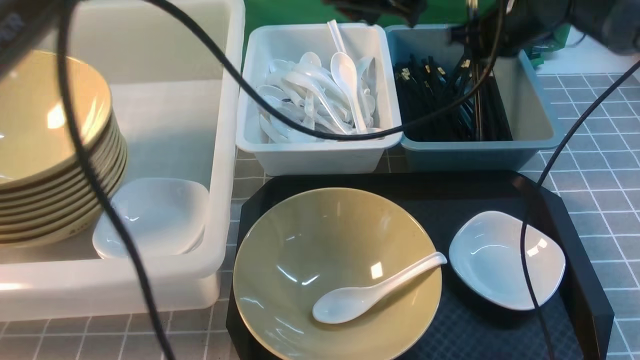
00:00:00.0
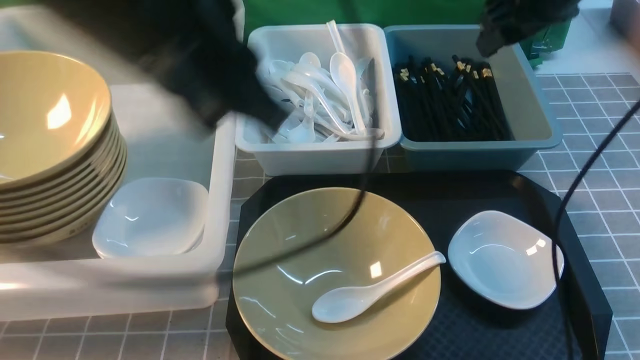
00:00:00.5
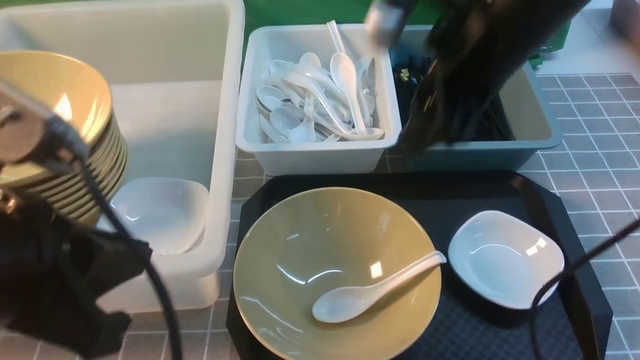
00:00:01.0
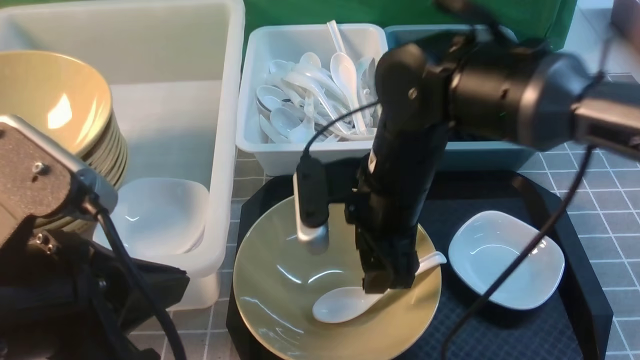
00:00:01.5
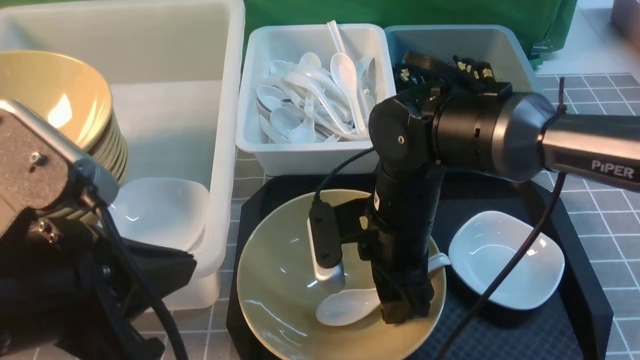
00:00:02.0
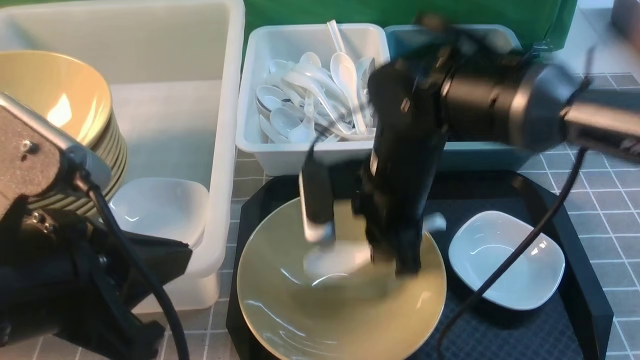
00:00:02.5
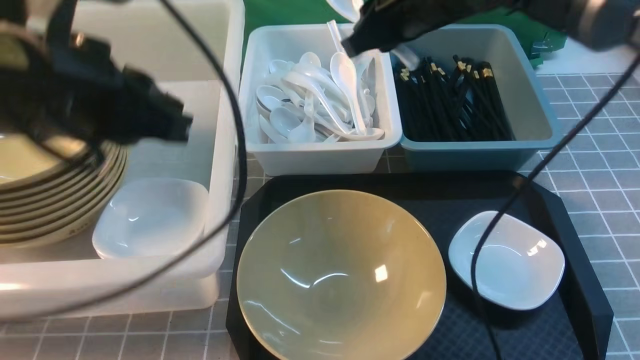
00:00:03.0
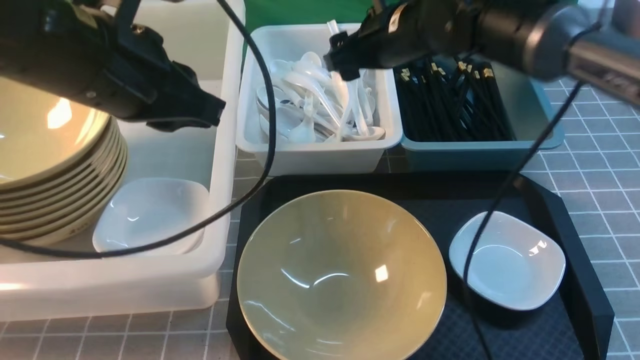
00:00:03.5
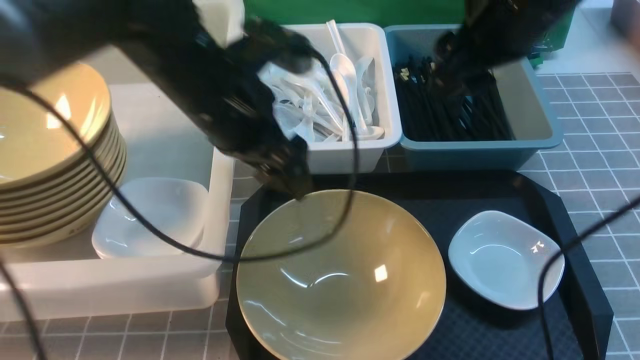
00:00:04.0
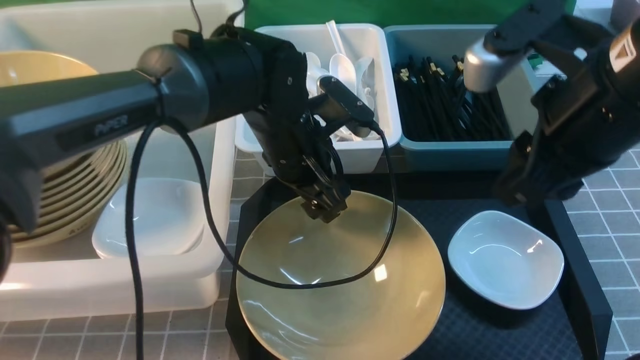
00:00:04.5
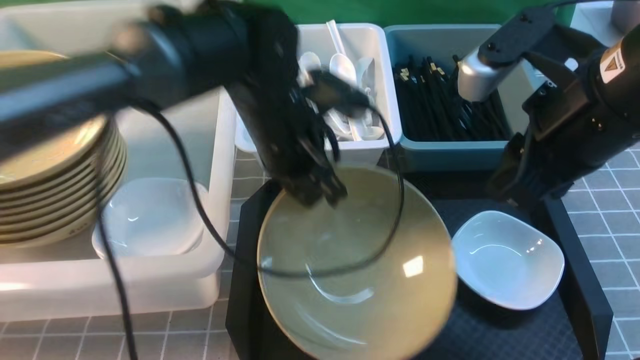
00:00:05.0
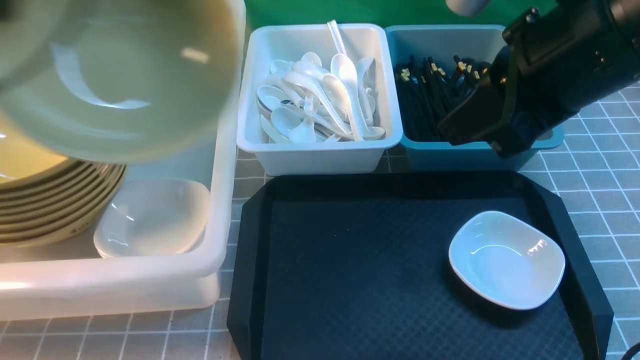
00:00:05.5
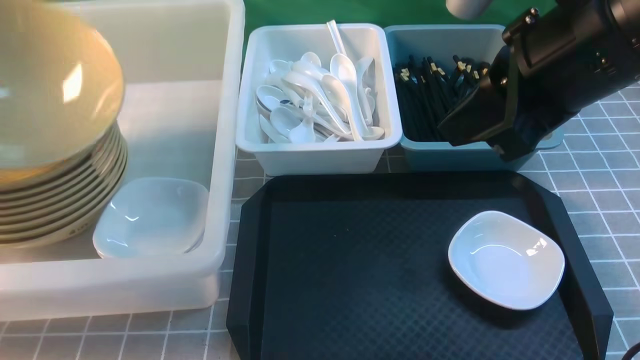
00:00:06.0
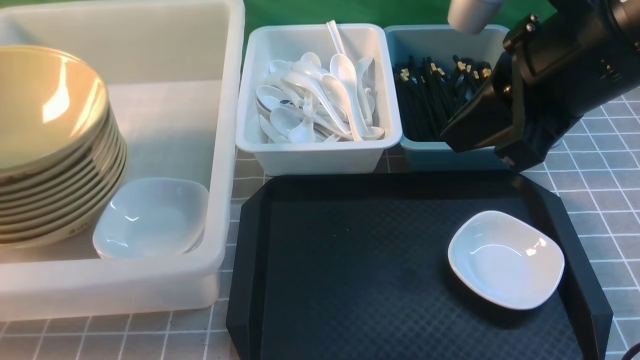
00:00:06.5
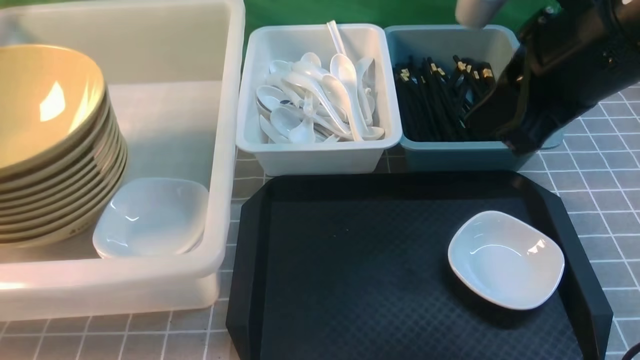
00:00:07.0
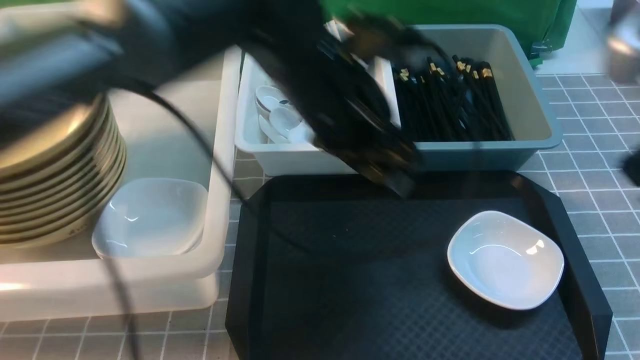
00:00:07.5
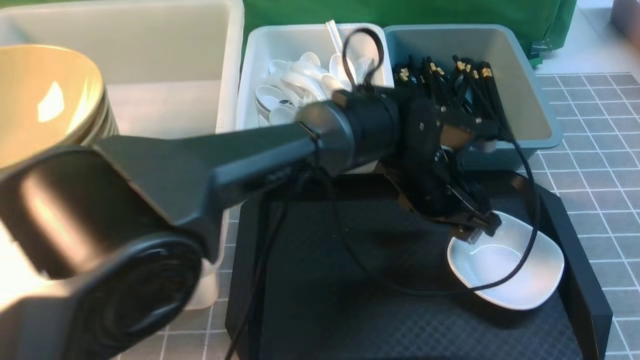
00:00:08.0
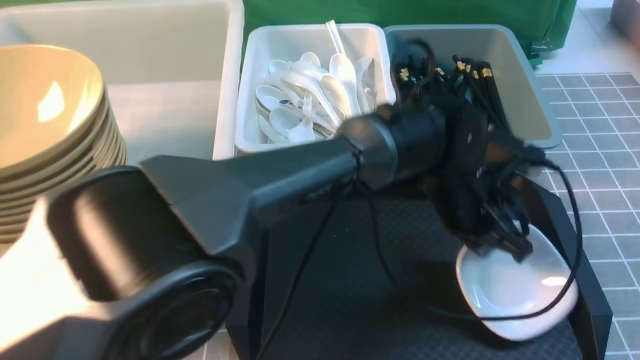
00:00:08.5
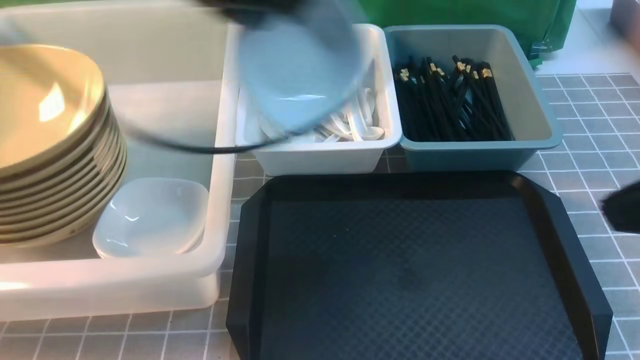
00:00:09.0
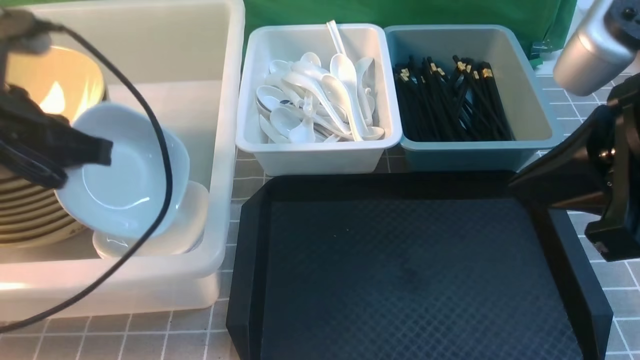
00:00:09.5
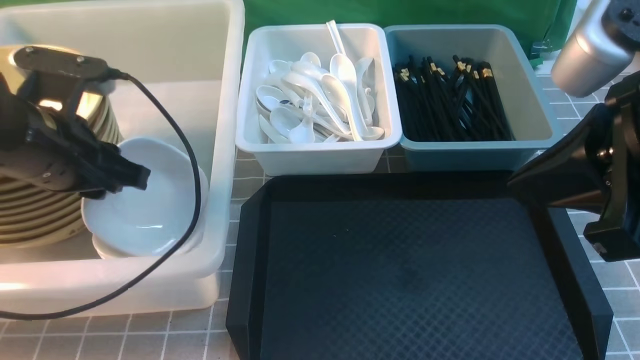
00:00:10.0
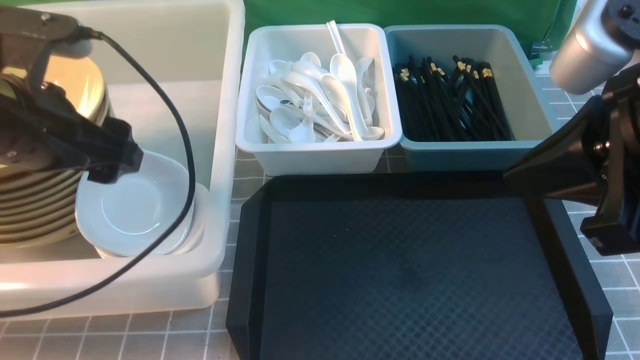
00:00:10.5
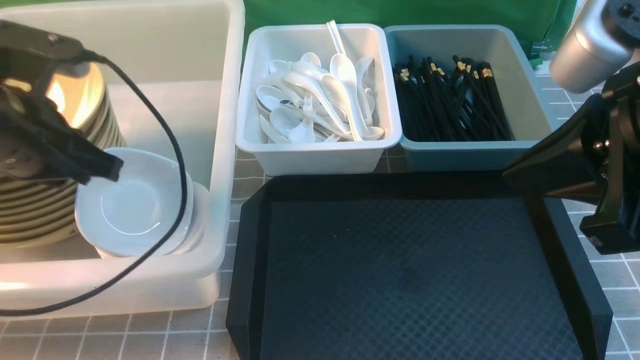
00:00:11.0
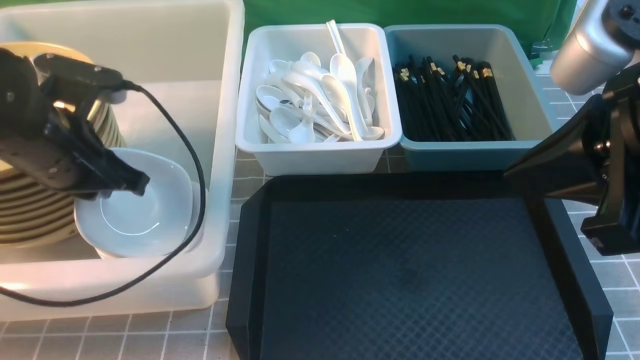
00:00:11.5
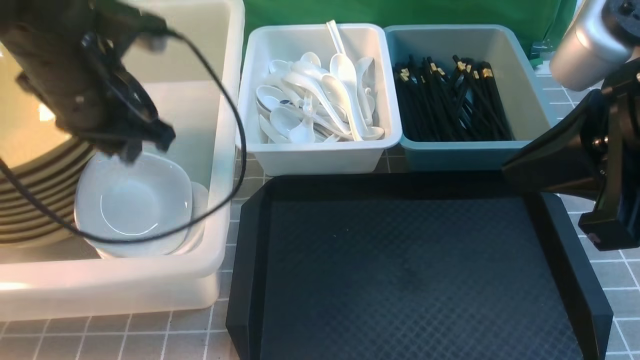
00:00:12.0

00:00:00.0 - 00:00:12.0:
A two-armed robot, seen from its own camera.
Task of the whole recording: on grey table put chopsticks spoon bowls plates into blue grey white boxes.
Step, 00:00:01.0 - 00:00:02.0: use the right arm to grab the soup spoon in the middle.
Step, 00:00:03.5 - 00:00:05.0: use the left arm to grab the yellow noodle bowl on the left.
Step, 00:00:05.5 - 00:00:07.0: use the left arm to put the noodle bowl into the large storage box on the left.
Step, 00:00:07.5 - 00:00:08.5: use the left arm to grab the plate.
00:00:00.0 - 00:00:02.0: The right gripper shifts some 30 cm backward and to the left; the left gripper moves backward, to the left and downward, some 30 cm.
00:00:02.0 - 00:00:04.0: The right gripper is displaced upward and to the right by roughly 20 cm, and closes, then opens again. The left gripper moves forward, approximately 20 cm, and opens its fingers.
00:00:04.0 - 00:00:06.0: The left gripper is displaced to the left by some 35 cm, and closes its fingers. Meanwhile the right gripper is displaced backward by roughly 5 cm, and closes.
00:00:06.0 - 00:00:08.0: The right gripper heads backward and to the right, covering approximately 15 cm. Meanwhile the left gripper shifts about 50 cm to the right, and opens its fingers.
00:00:08.0 - 00:00:10.0: The left gripper is displaced to the left by roughly 35 cm, and closes up, while the right gripper shifts some 10 cm to the left and forward.
00:00:10.0 - 00:00:12.0: The left gripper shifts by some 5 cm, and opens and closes again.

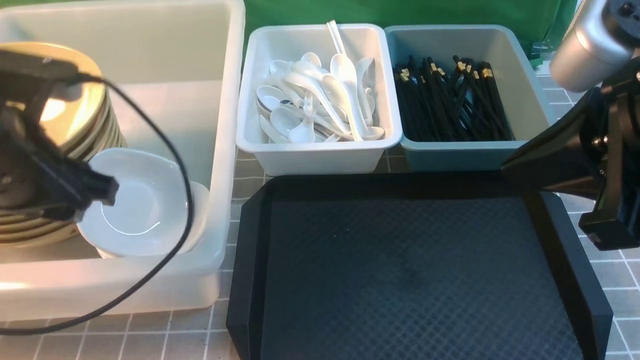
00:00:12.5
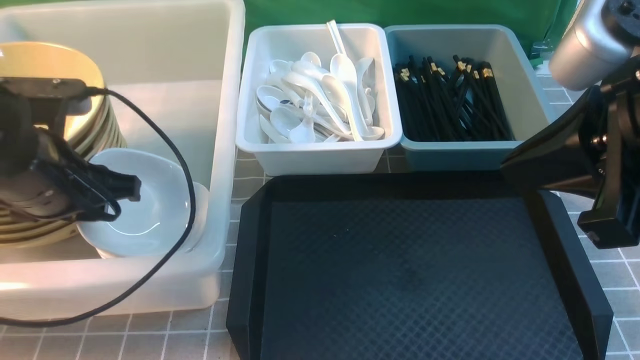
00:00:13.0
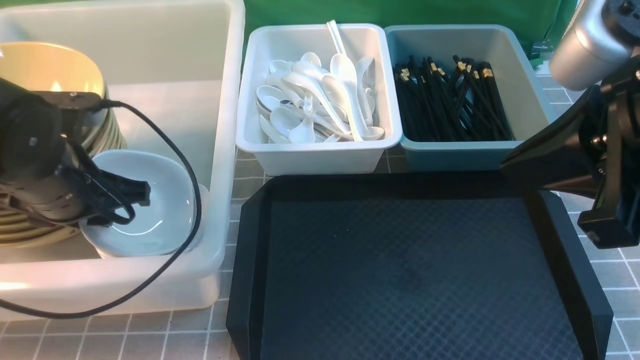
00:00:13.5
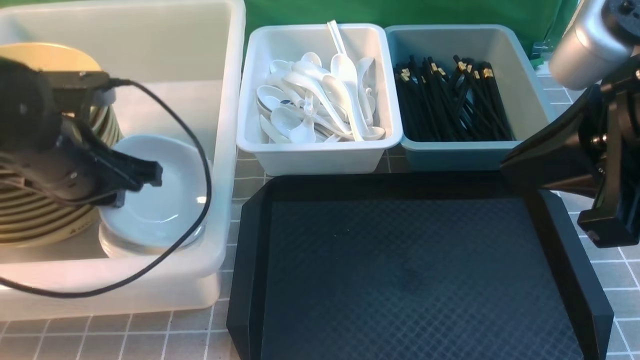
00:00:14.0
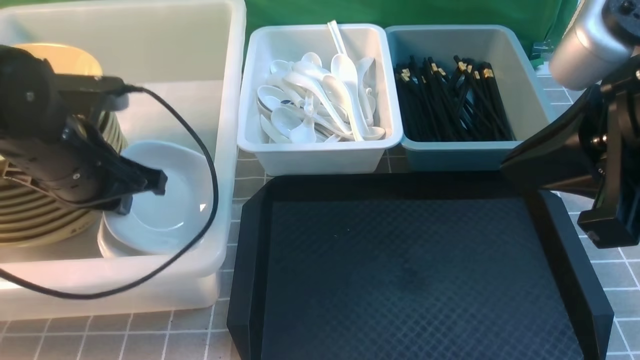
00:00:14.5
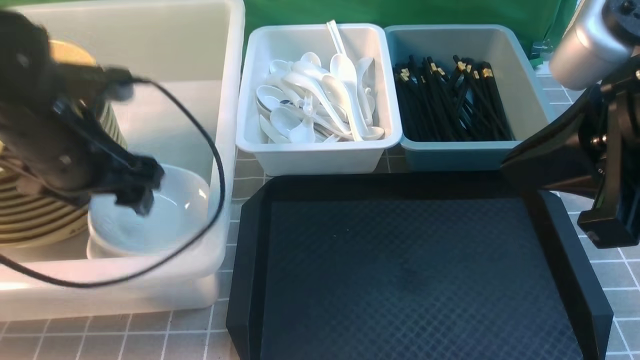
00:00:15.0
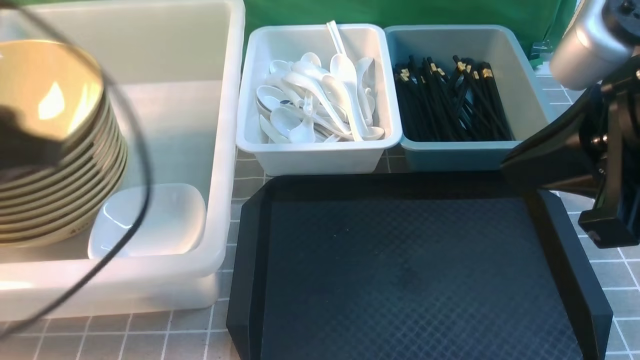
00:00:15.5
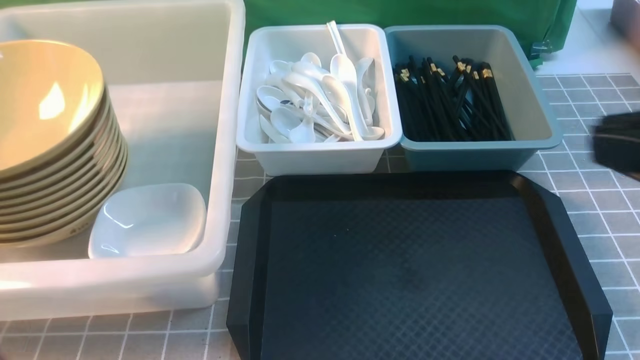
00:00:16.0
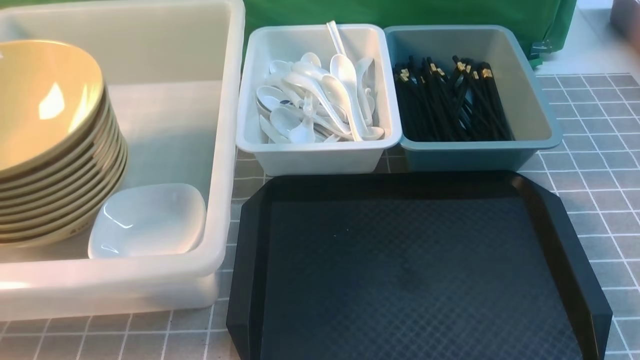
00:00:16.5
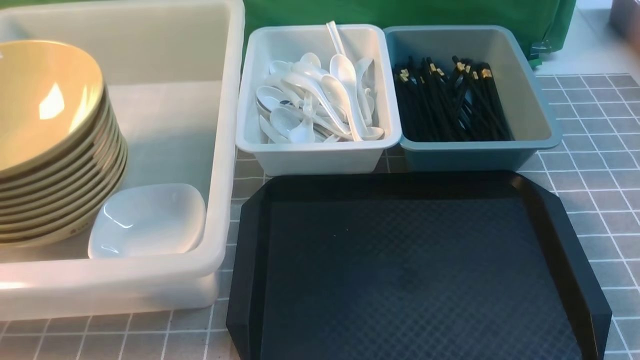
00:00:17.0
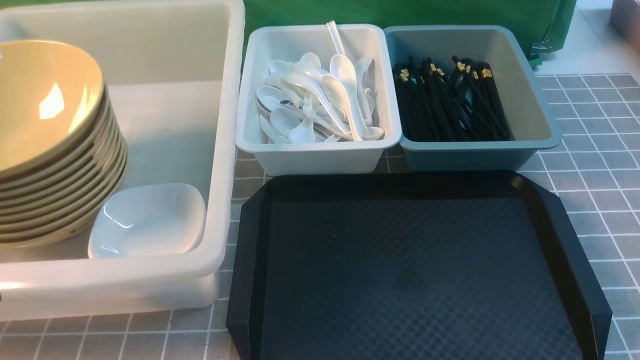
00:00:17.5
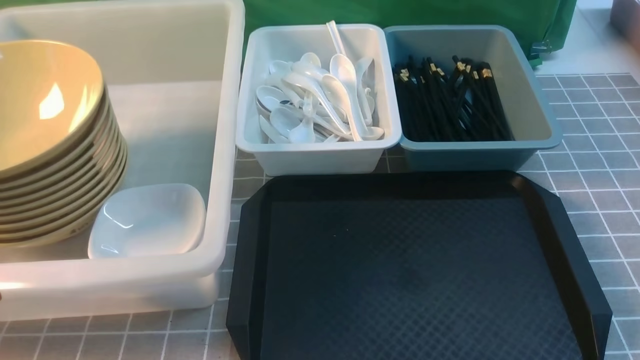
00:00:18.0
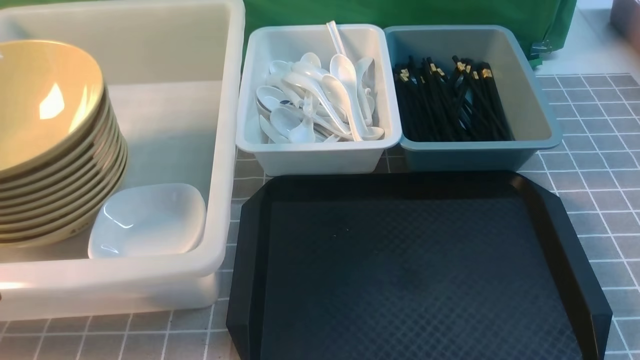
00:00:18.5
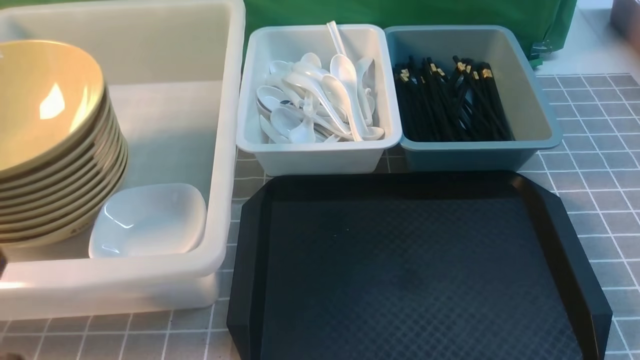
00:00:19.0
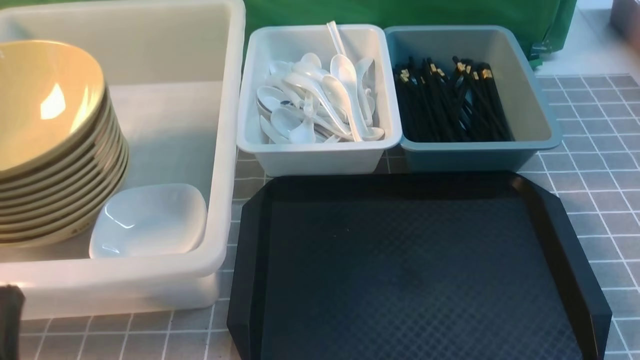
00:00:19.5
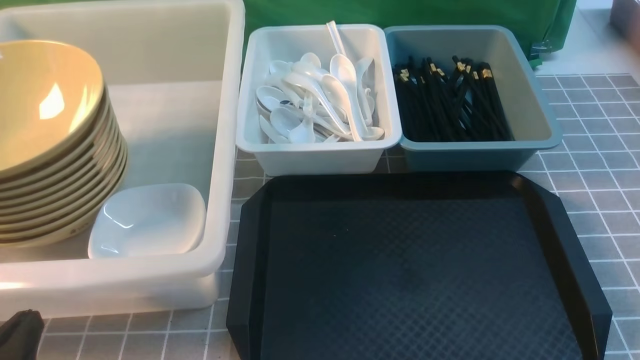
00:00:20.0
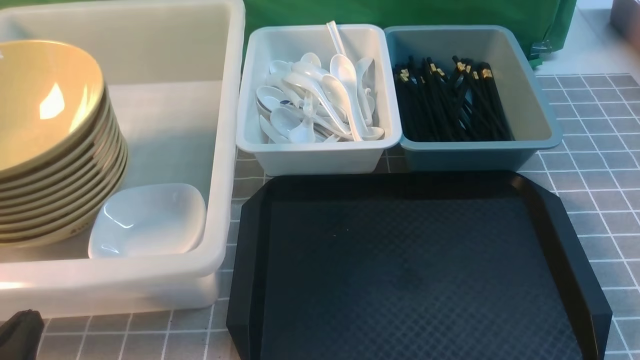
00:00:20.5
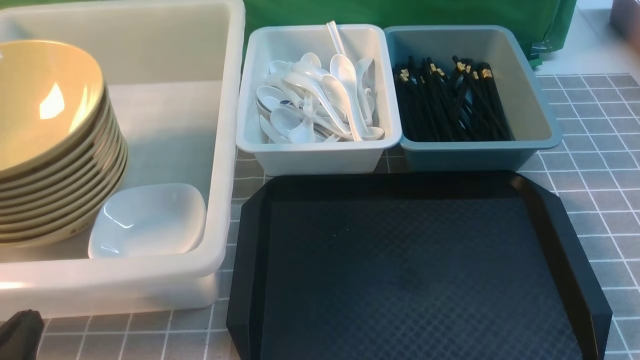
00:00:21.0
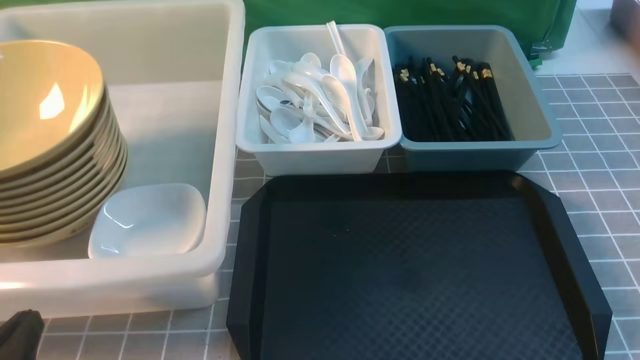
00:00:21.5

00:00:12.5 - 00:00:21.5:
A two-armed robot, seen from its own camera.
Task of the whole recording: on grey table put chopsticks spoon bowls plates into blue grey white boxes.
Step, 00:00:12.5 - 00:00:15.0: use the left arm to put the plate into the large storage box on the left.
00:00:12.5 - 00:00:14.5: The left gripper changes place by some 5 cm.
00:00:14.5 - 00:00:17.0: The right gripper moves backward, to the right and downward, some 15 cm; the left gripper shifts approximately 25 cm backward, and opens, then closes again.
00:00:17.0 - 00:00:19.5: The left gripper is displaced downward by roughly 10 cm.
00:00:19.5 - 00:00:21.5: The grippers make only small movements.
